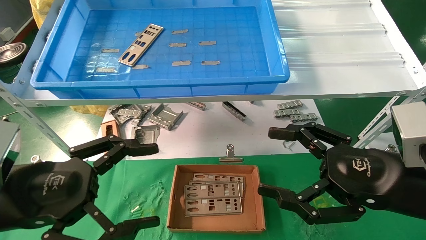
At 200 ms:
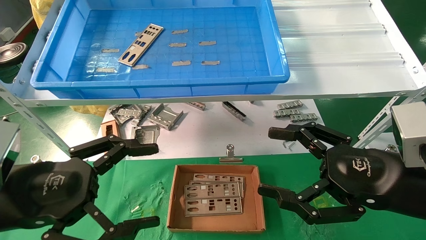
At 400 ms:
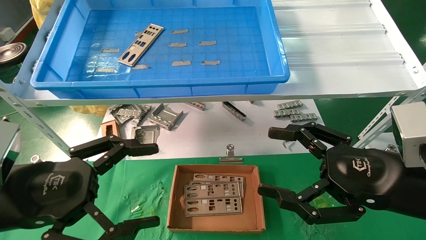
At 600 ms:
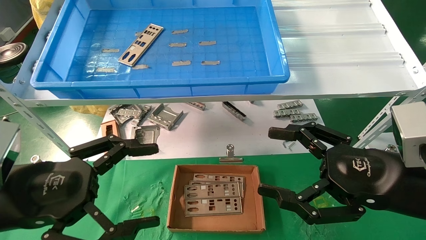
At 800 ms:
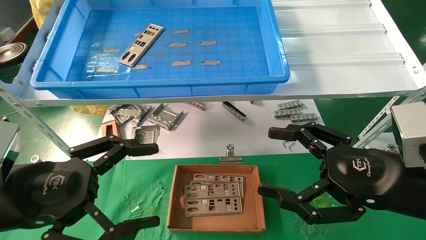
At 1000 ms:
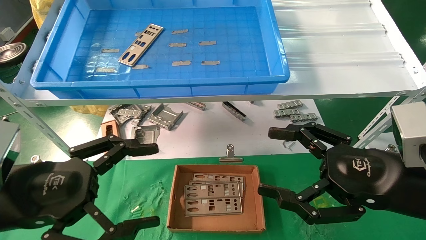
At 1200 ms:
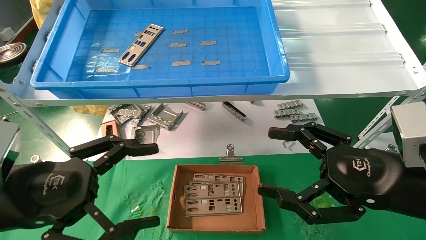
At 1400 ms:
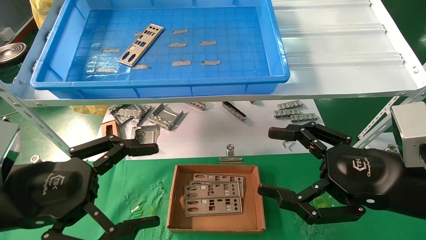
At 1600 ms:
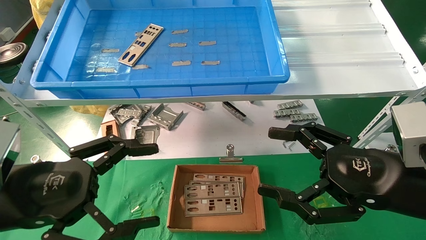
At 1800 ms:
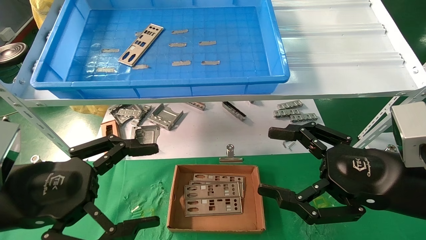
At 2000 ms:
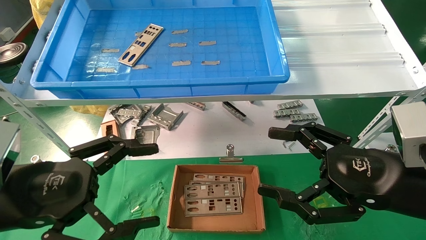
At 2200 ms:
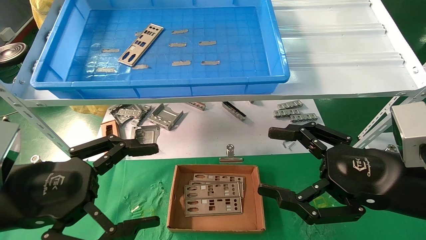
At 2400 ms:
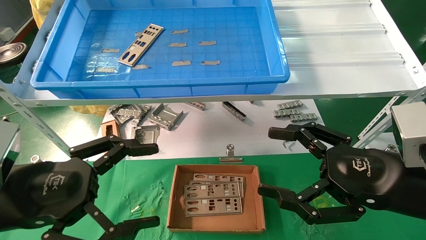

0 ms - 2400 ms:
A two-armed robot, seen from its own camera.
Task of the whole recording: pick up the parts on the tray and put them in the cardboard box.
0 ms - 2400 ms: The two grippers keep their place.

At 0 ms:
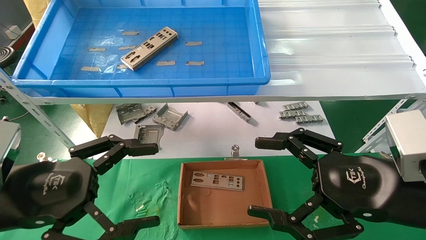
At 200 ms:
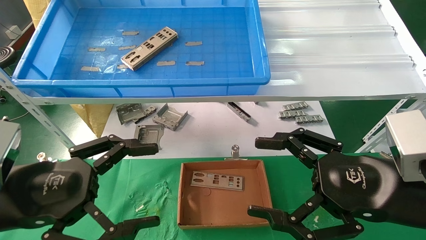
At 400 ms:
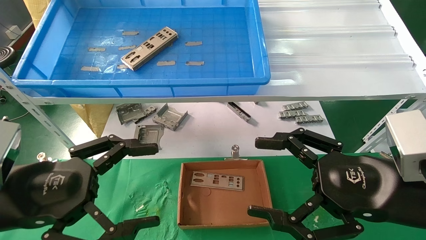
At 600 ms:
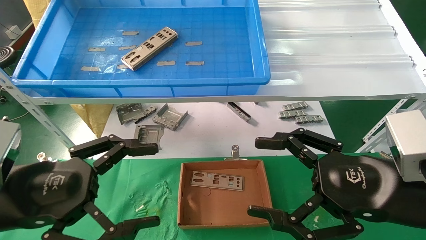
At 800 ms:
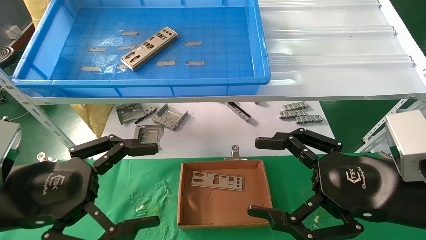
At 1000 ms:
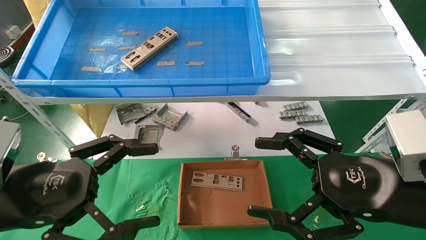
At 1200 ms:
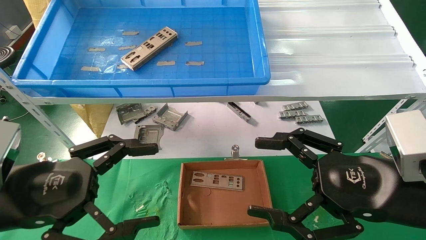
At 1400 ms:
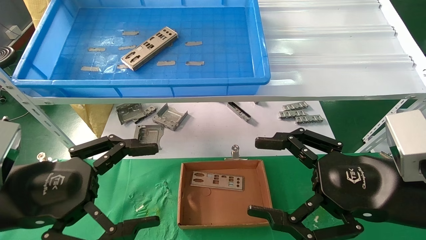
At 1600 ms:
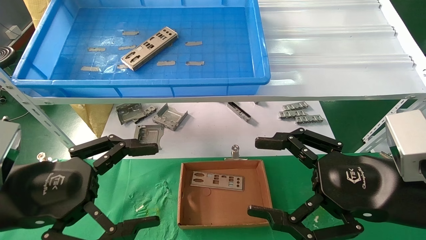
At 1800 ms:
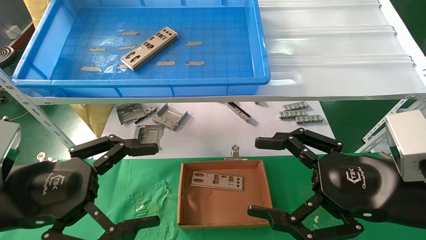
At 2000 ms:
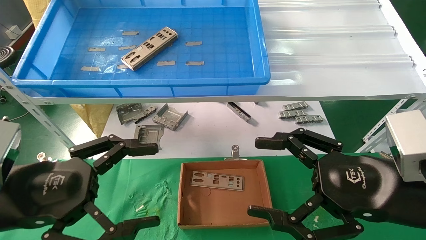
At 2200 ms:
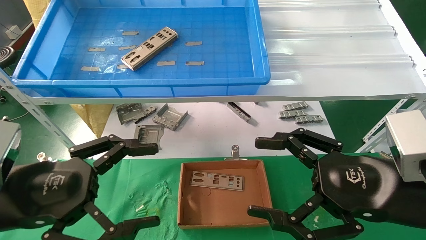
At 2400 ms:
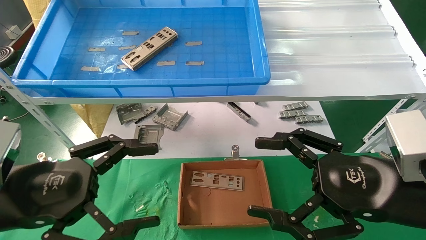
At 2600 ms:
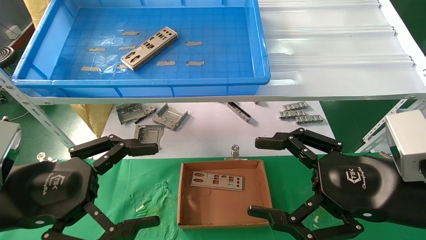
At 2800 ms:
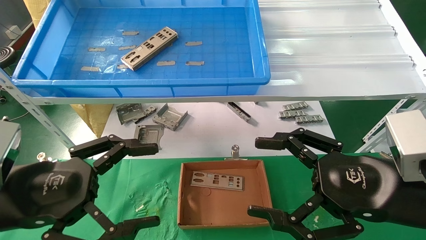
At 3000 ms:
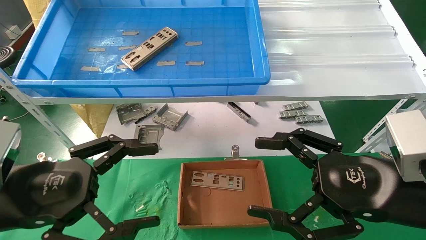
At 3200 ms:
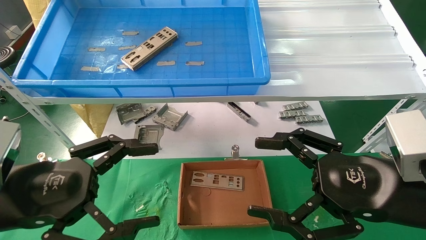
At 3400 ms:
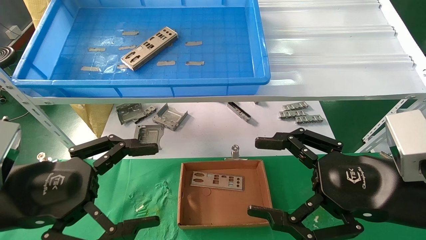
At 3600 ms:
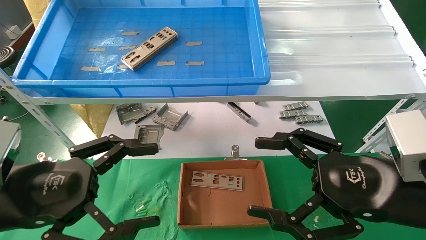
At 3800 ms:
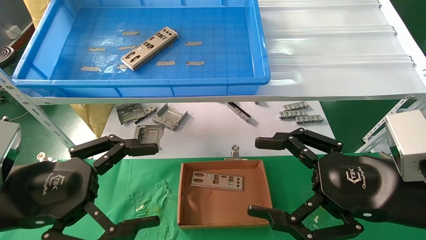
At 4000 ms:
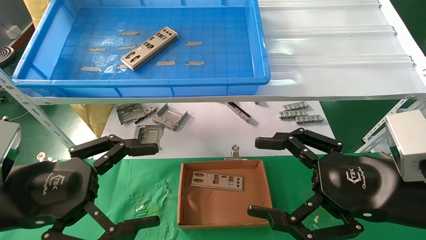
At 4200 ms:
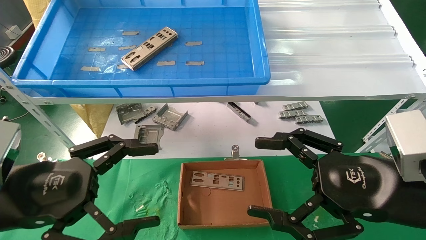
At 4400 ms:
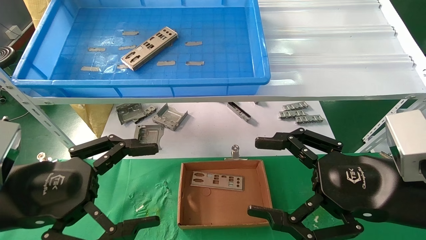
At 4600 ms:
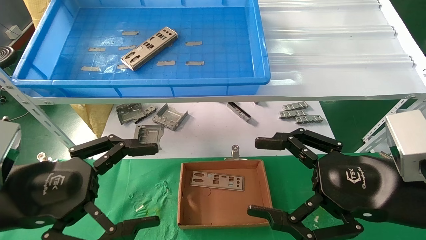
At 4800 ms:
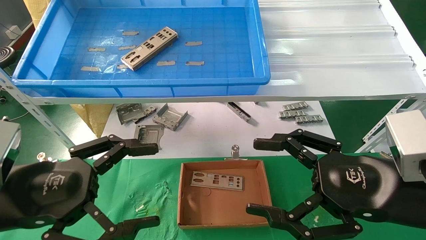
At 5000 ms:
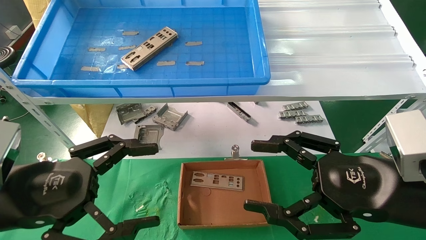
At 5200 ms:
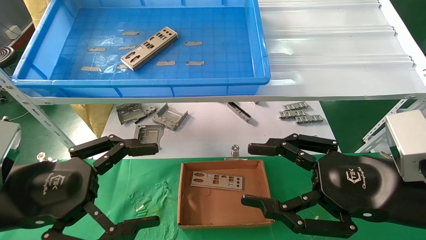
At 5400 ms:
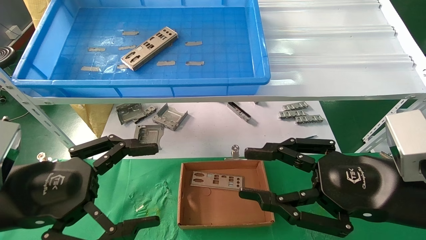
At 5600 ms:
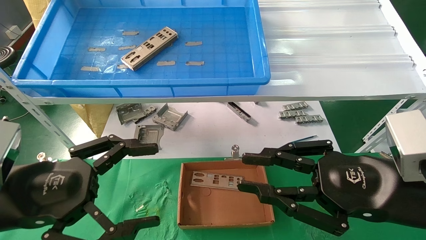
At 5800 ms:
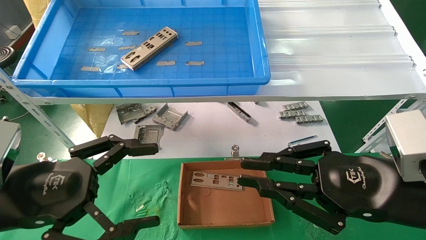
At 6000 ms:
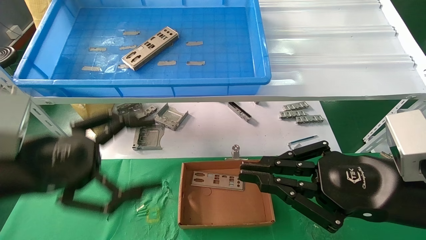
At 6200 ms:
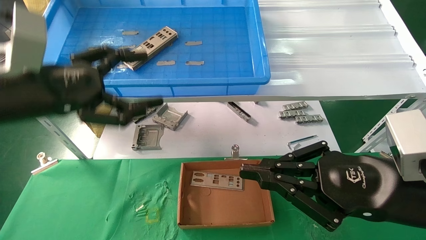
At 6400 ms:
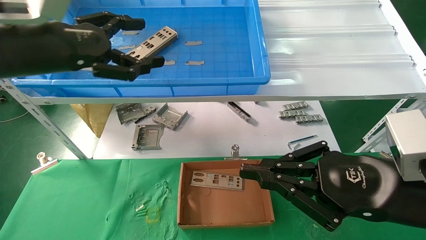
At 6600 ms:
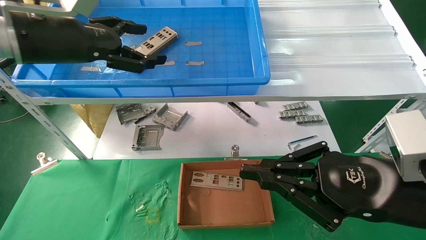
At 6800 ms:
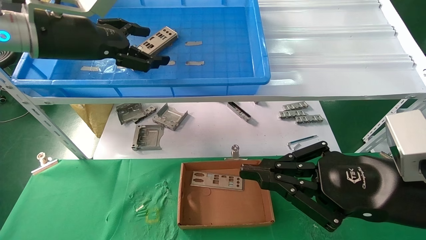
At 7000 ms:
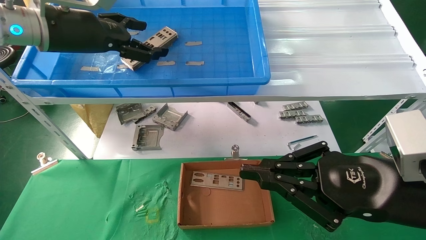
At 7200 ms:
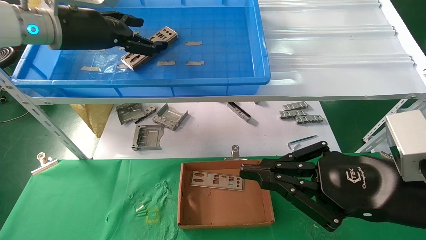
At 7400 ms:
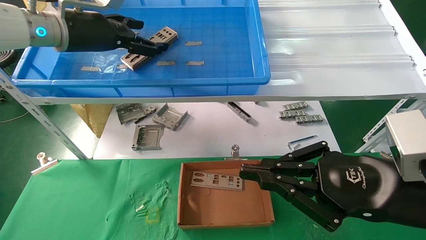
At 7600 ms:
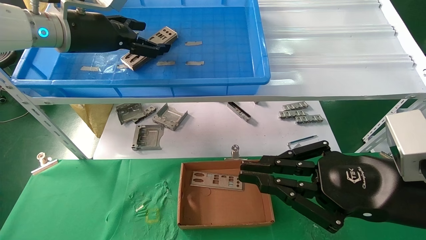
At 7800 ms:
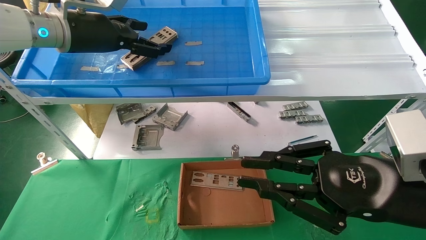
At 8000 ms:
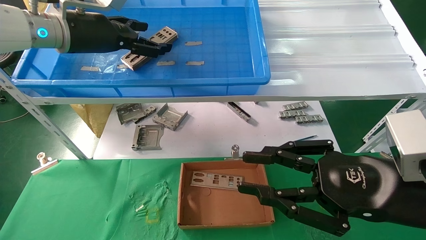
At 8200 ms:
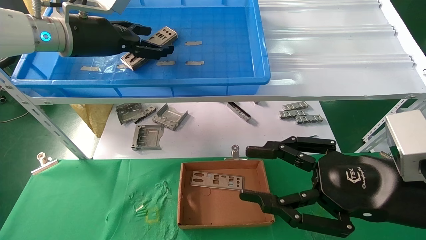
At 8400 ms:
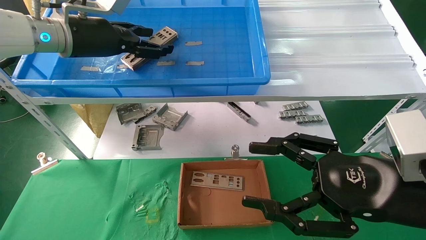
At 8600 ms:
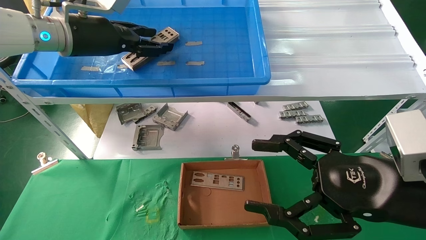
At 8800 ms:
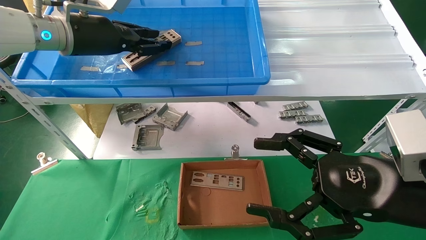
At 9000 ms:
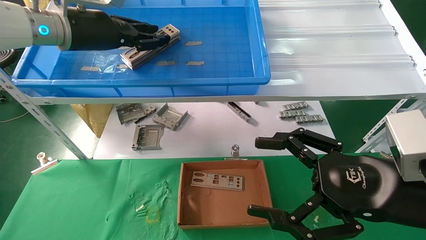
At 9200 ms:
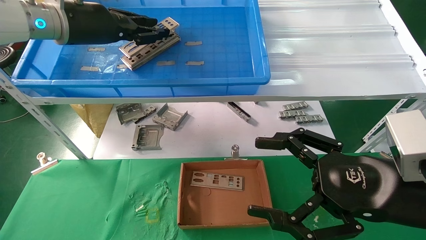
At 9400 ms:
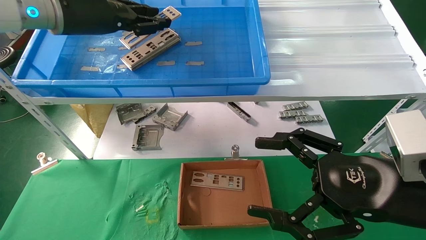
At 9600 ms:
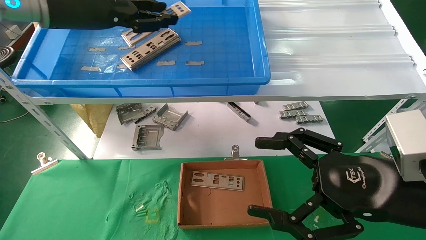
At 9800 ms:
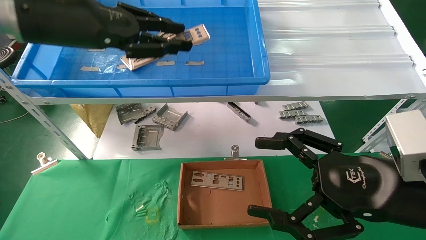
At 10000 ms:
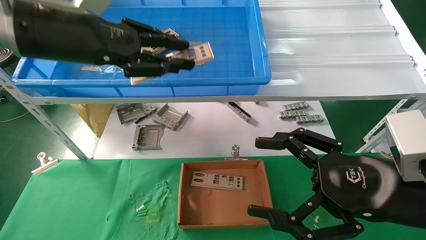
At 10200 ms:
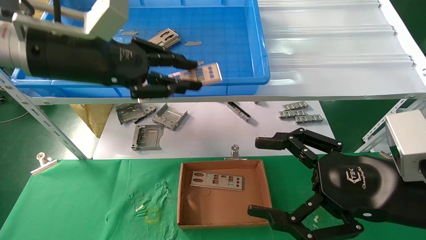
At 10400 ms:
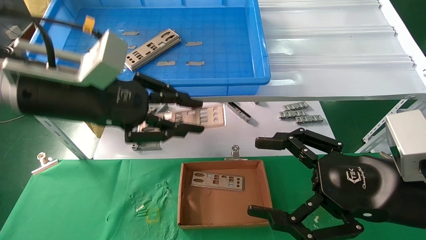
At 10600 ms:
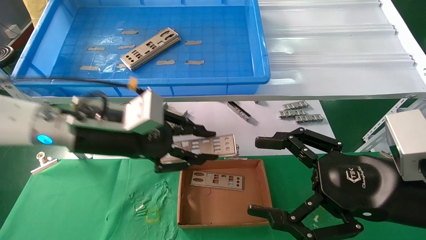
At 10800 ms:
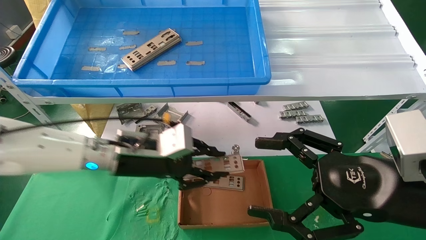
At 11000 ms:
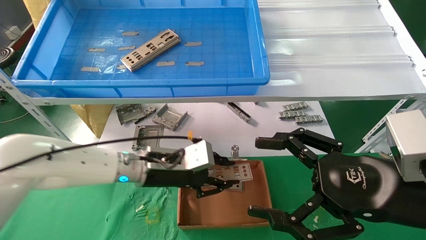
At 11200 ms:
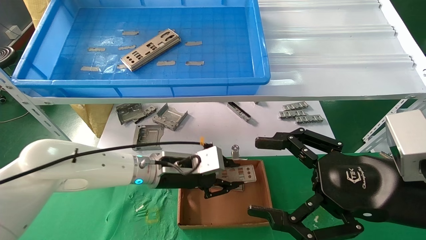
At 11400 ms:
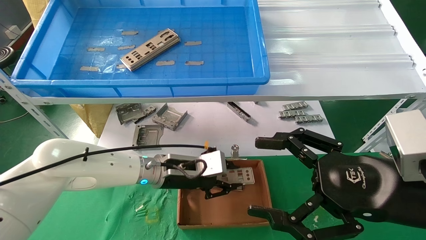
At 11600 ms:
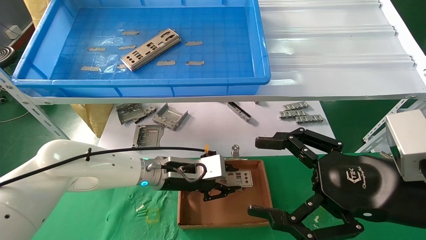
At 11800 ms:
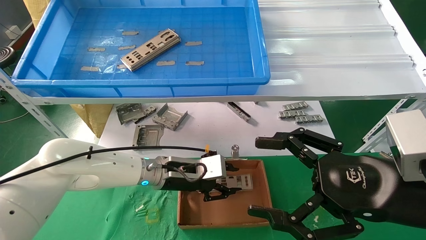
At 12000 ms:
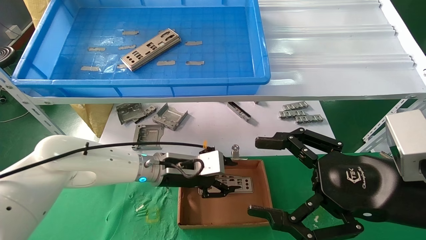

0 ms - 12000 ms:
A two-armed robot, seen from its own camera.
Task of the whole recording: pick up the parts on the tray and put them in the cardboard box.
Step, 6200 ms - 9000 ms: Pick up the IO bracket from the container box.
0 ms - 4400 ms: Neither gripper changes place.
4400 ms - 6000 ms: The left gripper goes roughly 5 cm upward; the right gripper closes.
6000 ms - 7600 ms: The left gripper travels forward and upward by some 25 cm.
7600 ms - 9000 ms: The left gripper closes its fingers, while the right gripper opens up.
9000 ms - 10400 ms: The left gripper shifts about 15 cm backward and downward.
10400 ms - 12000 ms: The left gripper goes approximately 25 cm downward, to the right and forward.

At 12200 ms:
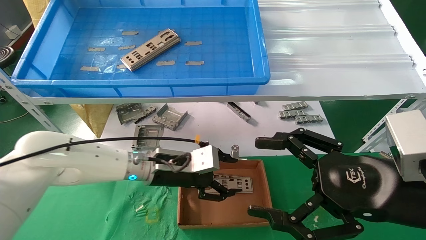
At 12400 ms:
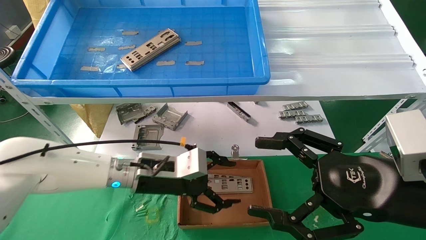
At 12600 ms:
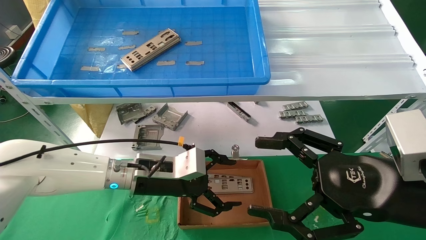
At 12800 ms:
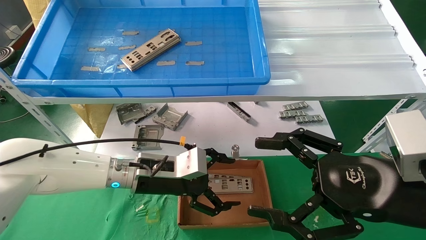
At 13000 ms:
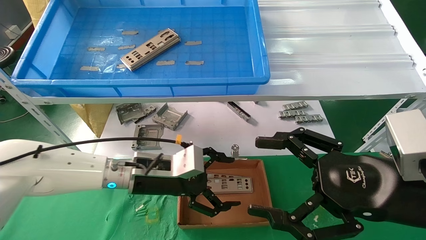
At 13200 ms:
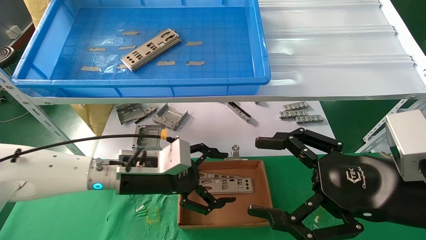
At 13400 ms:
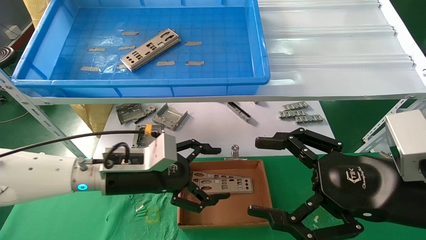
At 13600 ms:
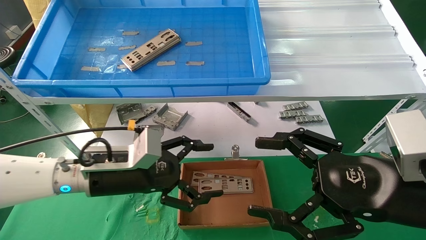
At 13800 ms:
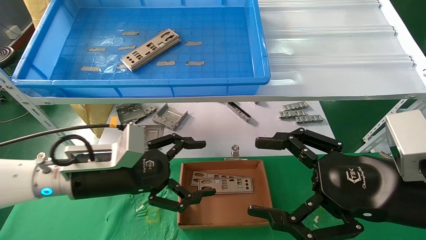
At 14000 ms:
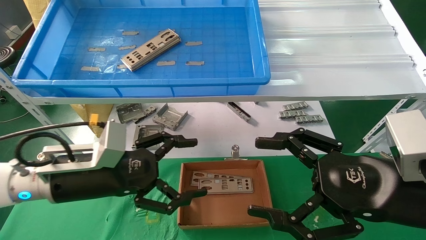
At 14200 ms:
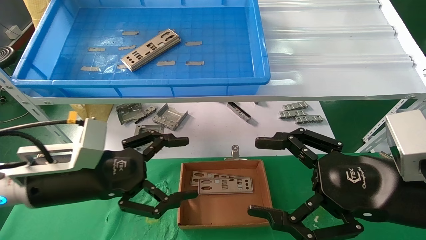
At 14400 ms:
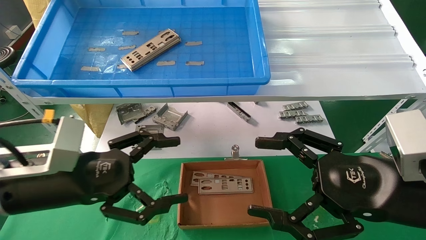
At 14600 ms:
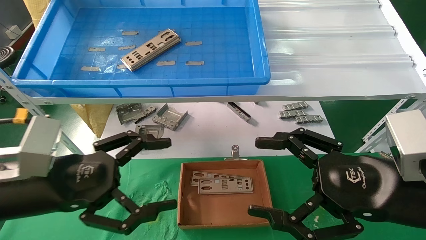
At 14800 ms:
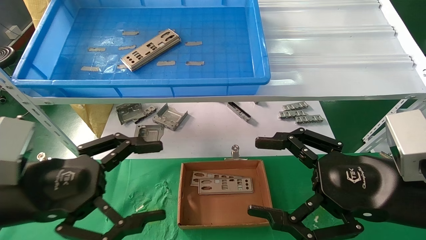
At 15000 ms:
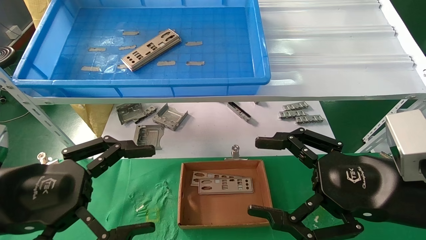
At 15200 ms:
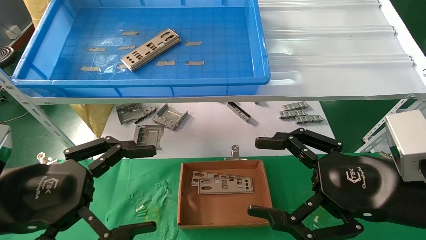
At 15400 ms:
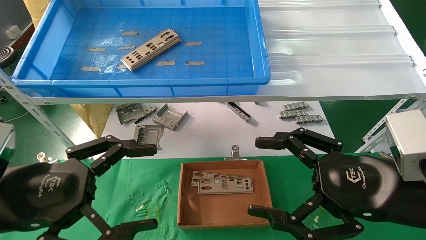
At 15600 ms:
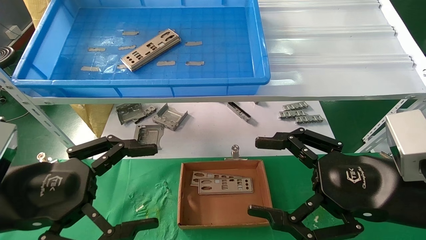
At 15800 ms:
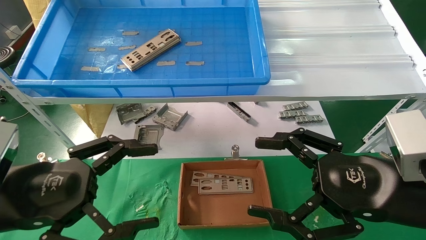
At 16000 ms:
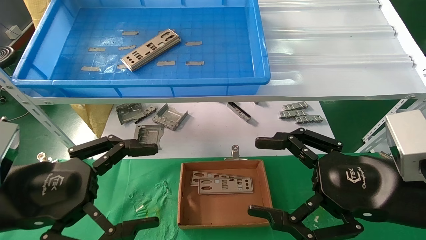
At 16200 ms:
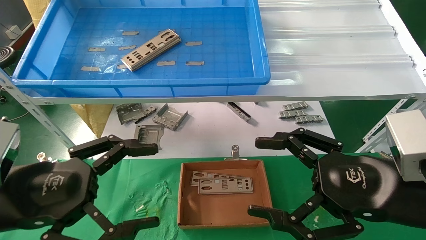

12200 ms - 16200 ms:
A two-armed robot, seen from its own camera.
Task of the whole recording: pick up the parts on the tray and put them in the cardboard box.
12200 ms - 13600 ms: The left gripper moves to the left and backward, roughly 10 cm, and opens.
13600 ms - 14800 ms: The left gripper moves backward and to the left, some 15 cm.
14800 ms - 16200 ms: The grippers make only small movements.
